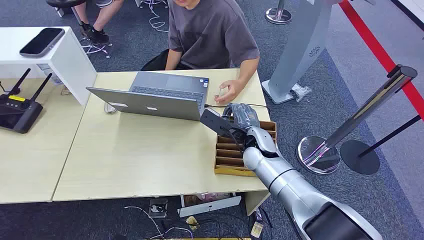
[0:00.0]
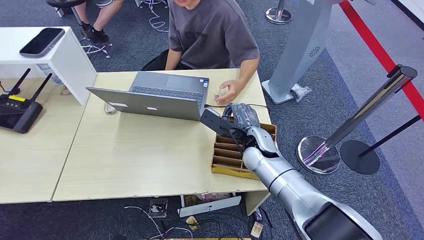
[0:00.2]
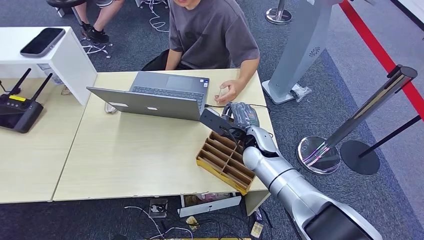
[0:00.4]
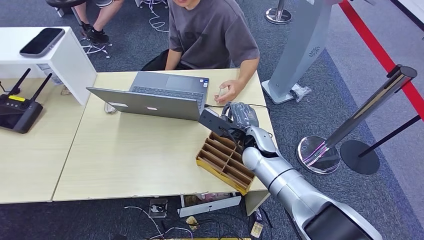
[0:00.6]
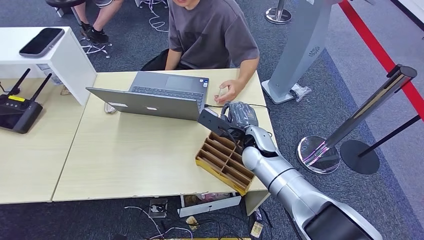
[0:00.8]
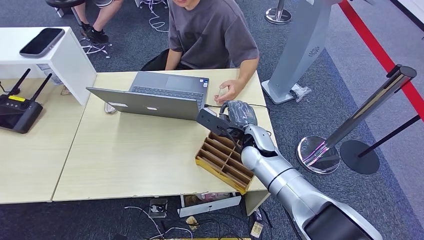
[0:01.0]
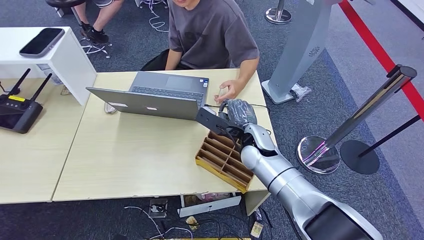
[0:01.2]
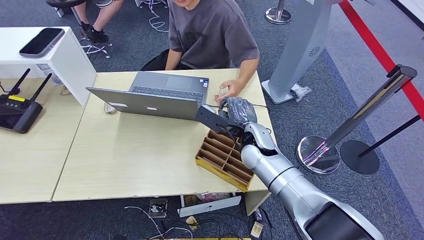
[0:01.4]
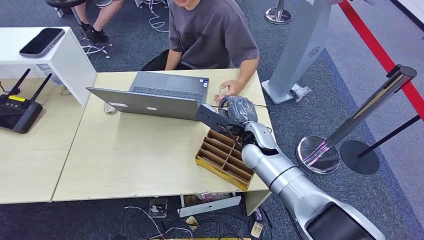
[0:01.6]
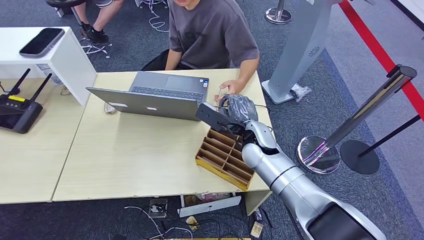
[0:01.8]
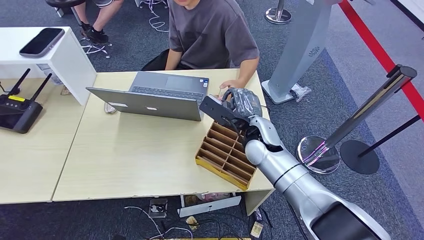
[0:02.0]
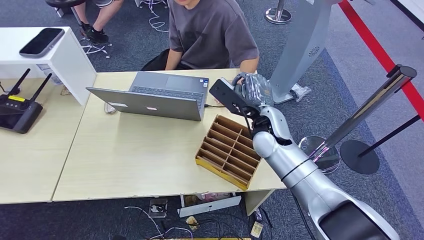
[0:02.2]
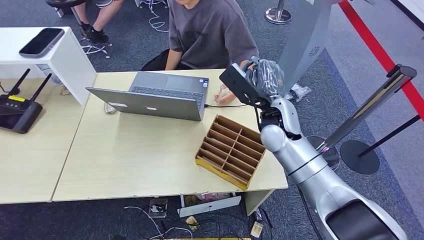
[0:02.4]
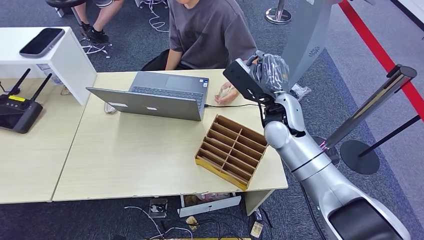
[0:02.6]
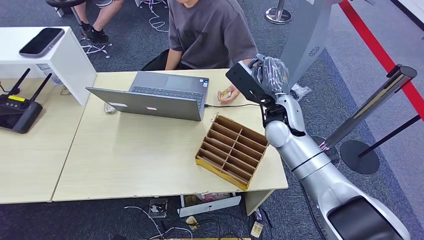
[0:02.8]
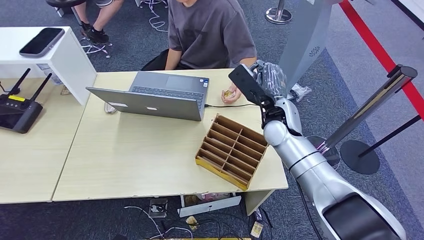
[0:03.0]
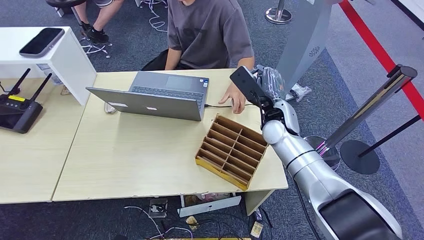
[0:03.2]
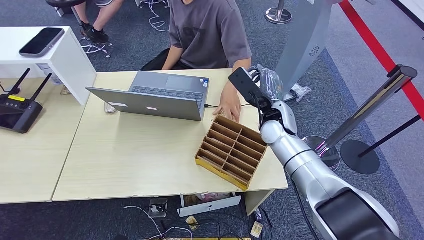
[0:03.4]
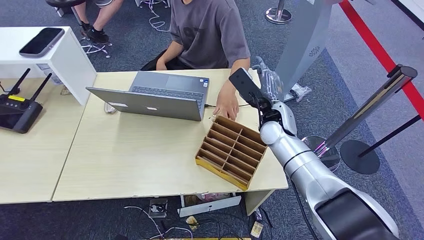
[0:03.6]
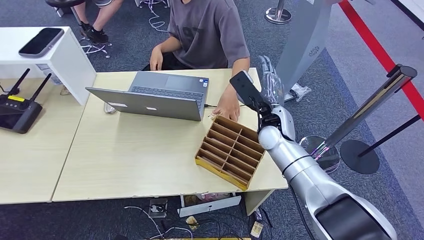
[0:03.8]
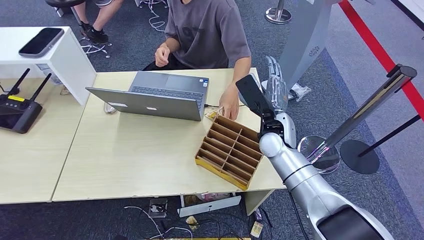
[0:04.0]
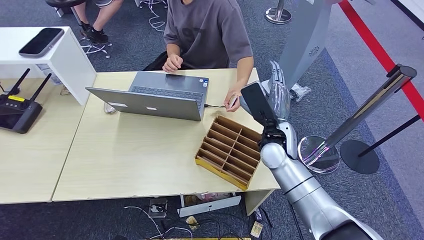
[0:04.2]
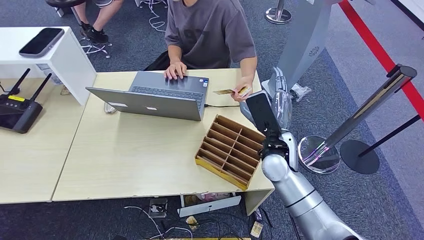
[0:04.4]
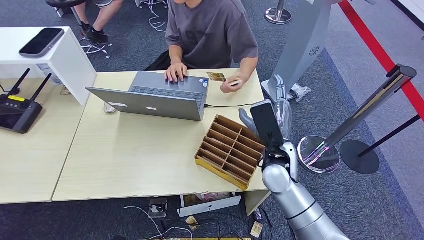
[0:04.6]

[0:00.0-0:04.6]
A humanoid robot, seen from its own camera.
Task of the whole recording: Pick up the card and hand it over to the target person.
Step, 0:00.0 to 0:02.2: Pick up the key card from the card box.
Step, 0:02.6 to 0:04.6: Hand the key card to the target.
0:01.6 to 0:03.0: The right hand travels to the right by approximately 5 cm, and travels upward and back again, roughly 10 cm each way.
0:03.0 to 0:04.6: The right hand is displaced backward by approximately 15 cm.
